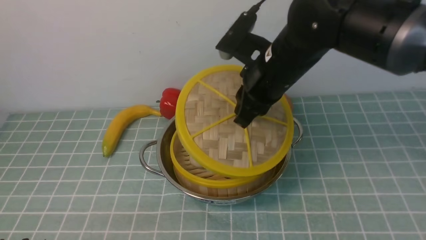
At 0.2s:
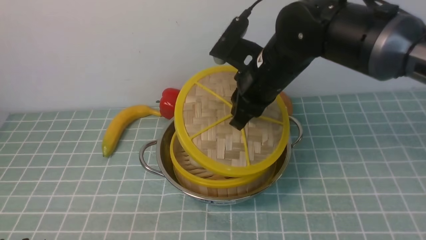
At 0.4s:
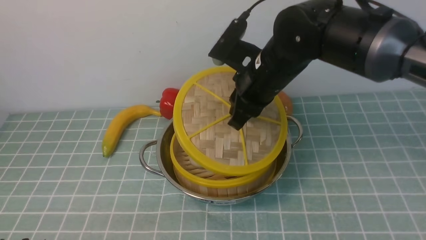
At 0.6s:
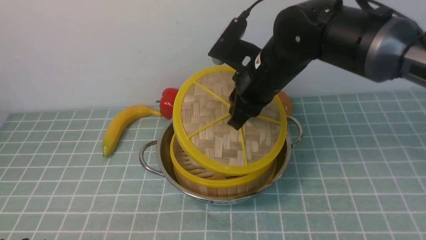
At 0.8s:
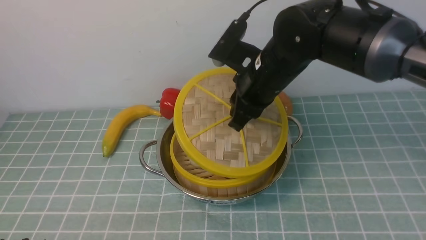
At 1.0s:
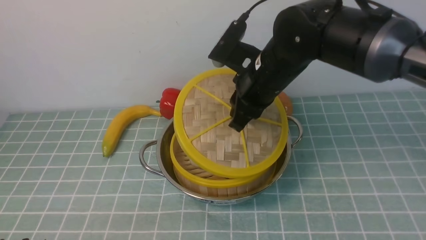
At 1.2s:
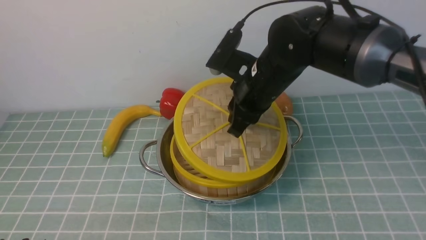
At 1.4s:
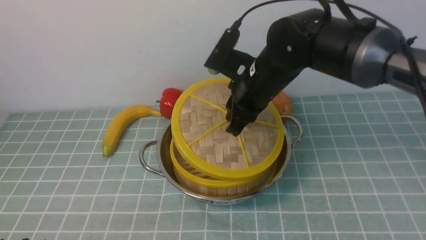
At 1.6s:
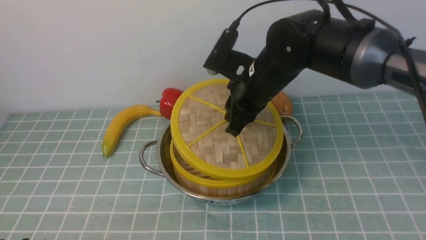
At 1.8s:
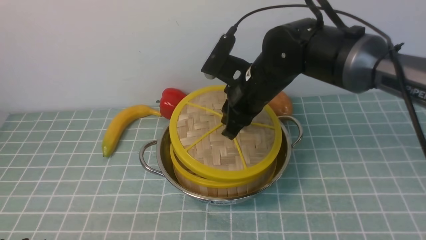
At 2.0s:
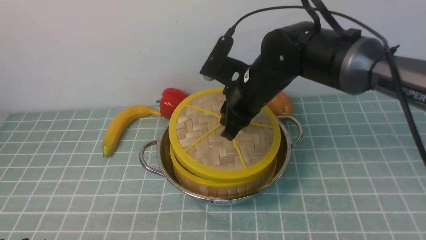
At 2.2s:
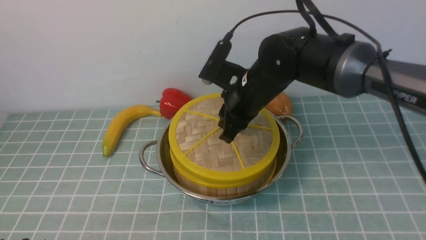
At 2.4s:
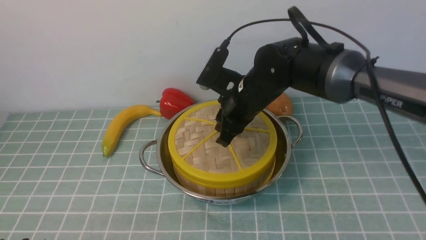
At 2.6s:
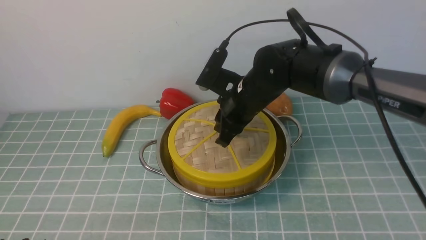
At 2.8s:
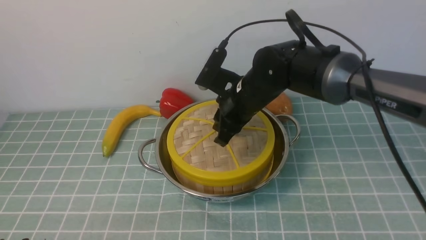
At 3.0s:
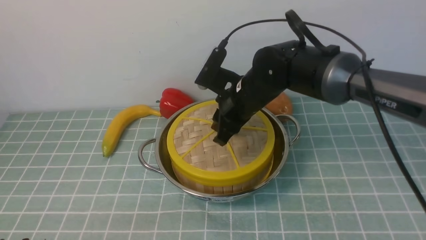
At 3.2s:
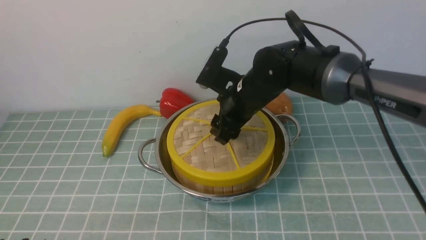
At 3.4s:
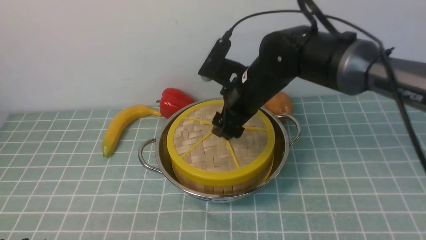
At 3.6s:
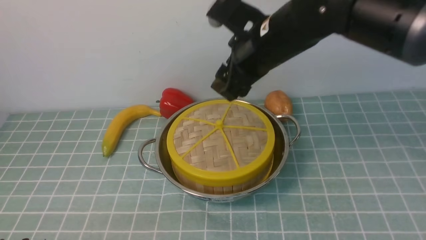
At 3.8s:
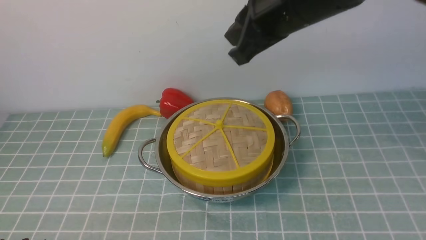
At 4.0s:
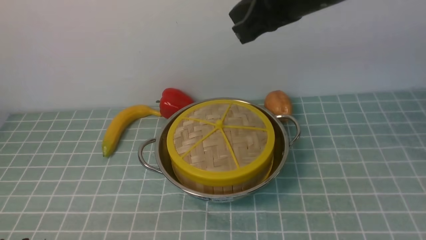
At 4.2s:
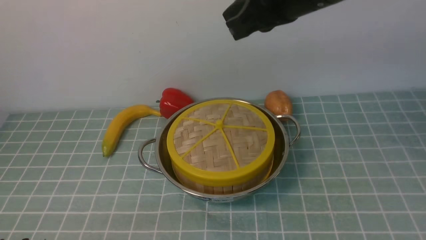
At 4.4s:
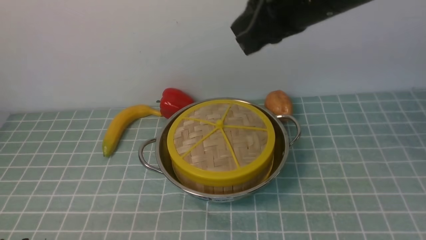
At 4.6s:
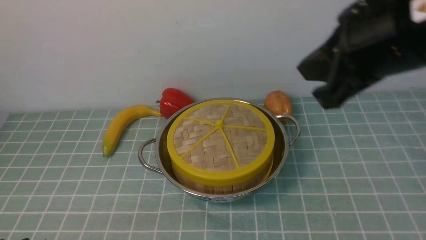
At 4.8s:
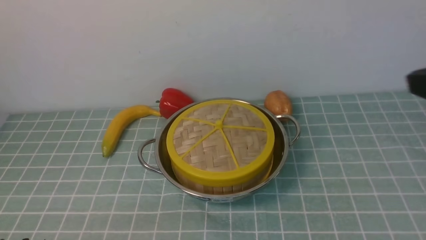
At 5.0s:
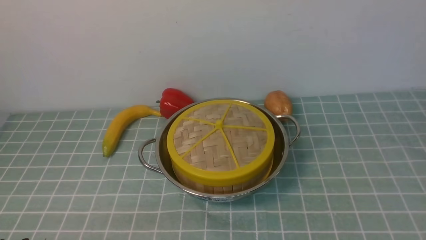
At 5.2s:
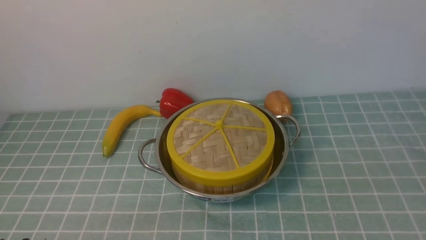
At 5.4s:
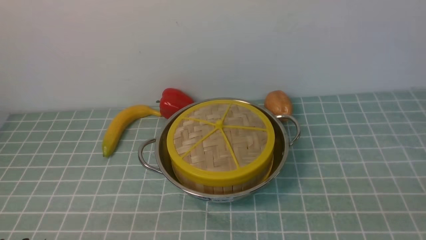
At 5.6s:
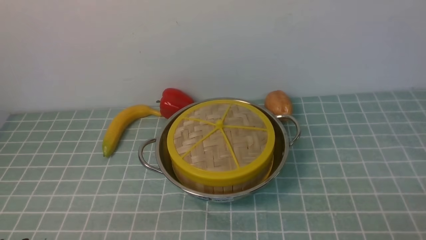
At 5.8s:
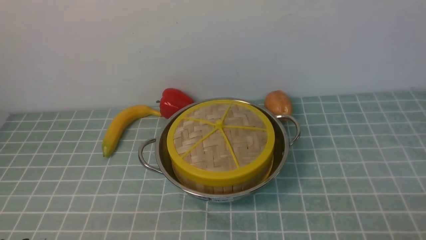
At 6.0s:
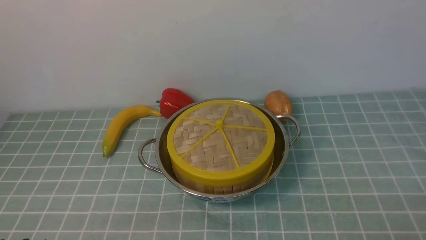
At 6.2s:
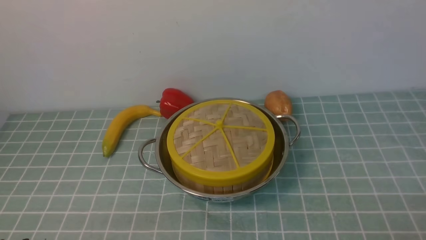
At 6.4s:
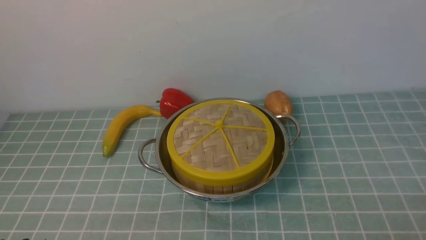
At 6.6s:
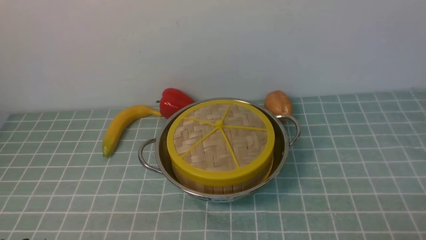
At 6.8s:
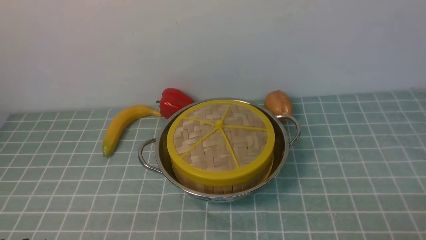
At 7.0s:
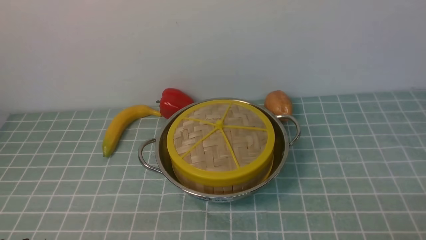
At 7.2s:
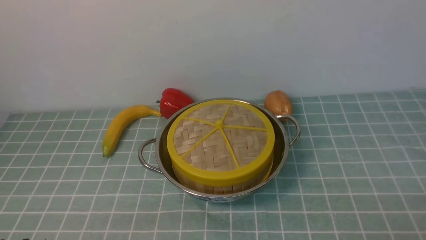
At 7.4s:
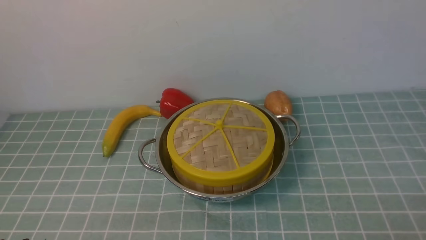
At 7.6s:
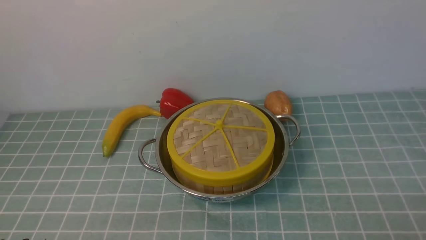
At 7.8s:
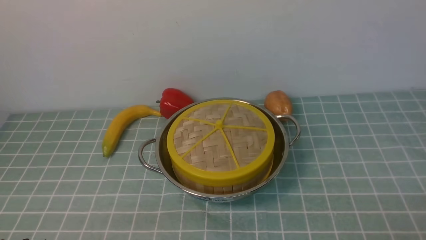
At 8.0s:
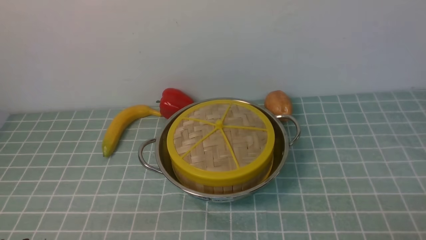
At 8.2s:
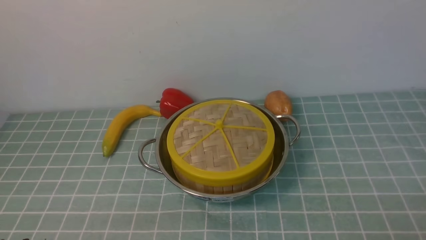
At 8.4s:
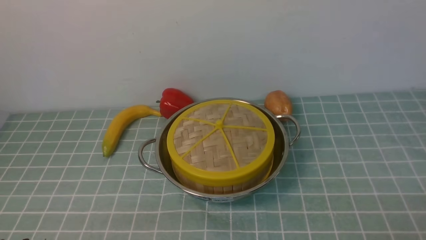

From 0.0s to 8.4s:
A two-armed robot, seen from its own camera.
Task of the whole recording: place the steamer in the pot on the blue tablecloth, and put the lid on the steamer.
Step, from 0.0s to 3.8s: use the right arm to place the steamer lid on the steamer.
From 0.0s to 1.4s: There are only small adjustments of the grippers.
From 1.4s to 2.8s: The right gripper changes place by some 5 cm.
From 2.8s to 4.2s: The right gripper heads upward and backward, covering about 25 cm, and closes up.
From 4.2s to 5.6s: The right gripper is displaced downward, backward and to the right by about 40 cm.
From 7.0s to 8.4s: The two grippers keep their place.
